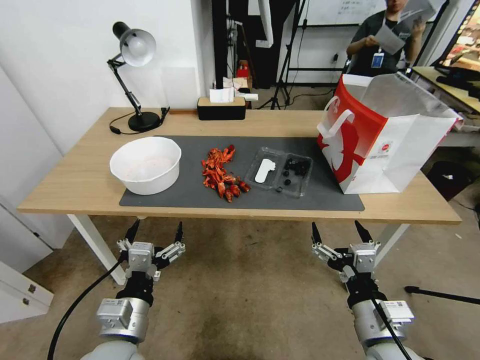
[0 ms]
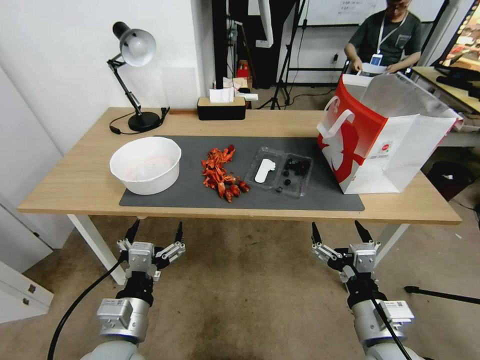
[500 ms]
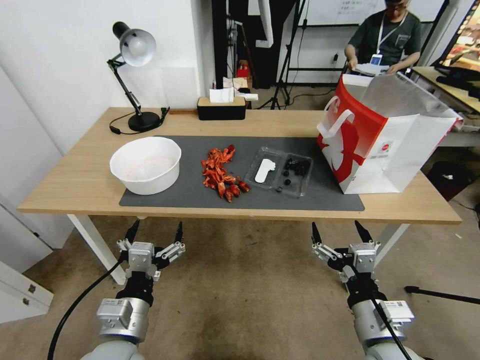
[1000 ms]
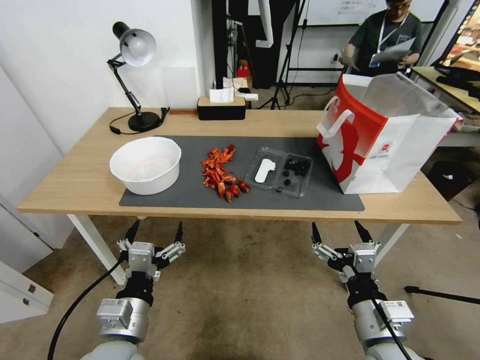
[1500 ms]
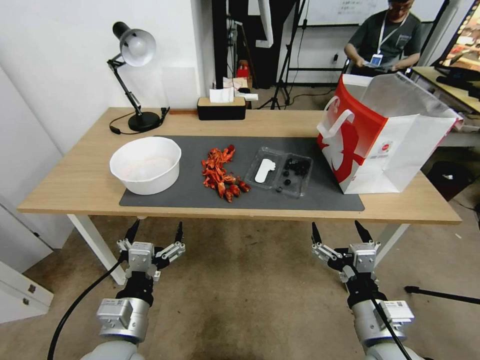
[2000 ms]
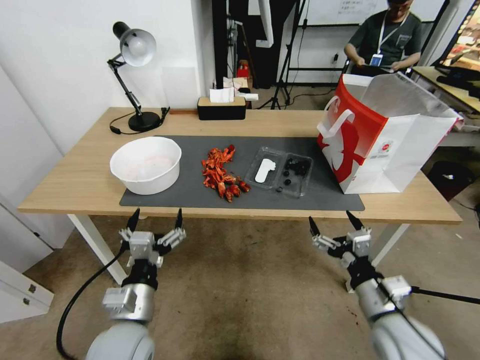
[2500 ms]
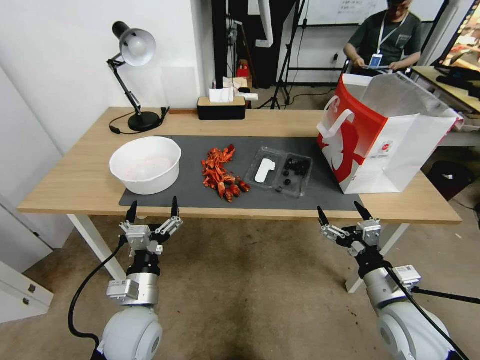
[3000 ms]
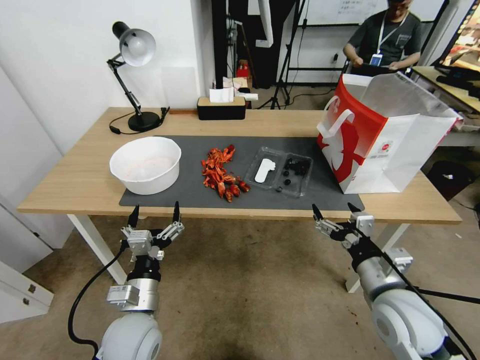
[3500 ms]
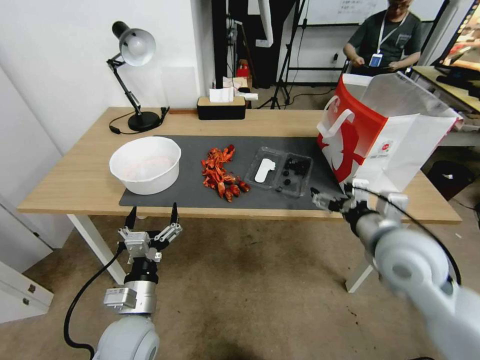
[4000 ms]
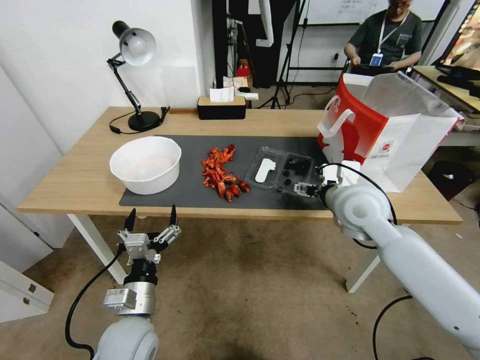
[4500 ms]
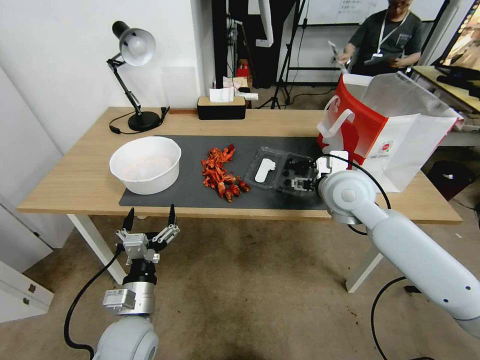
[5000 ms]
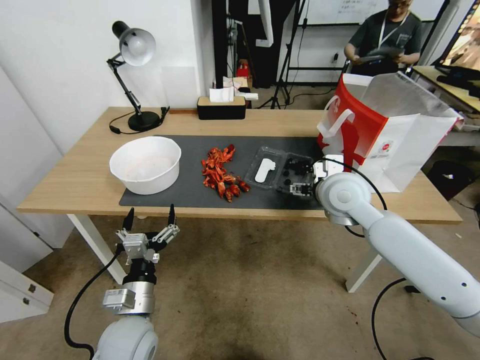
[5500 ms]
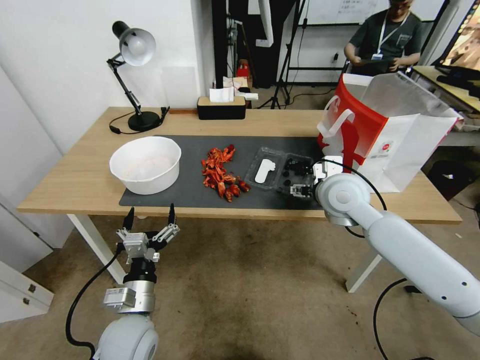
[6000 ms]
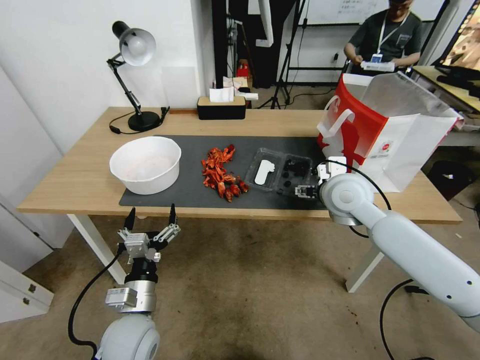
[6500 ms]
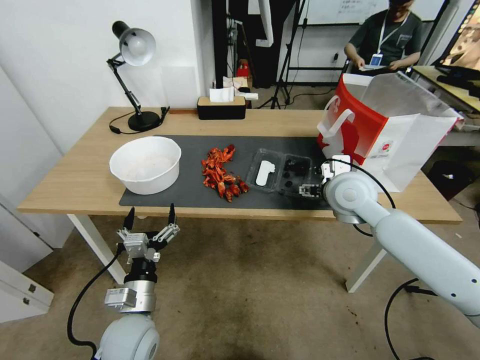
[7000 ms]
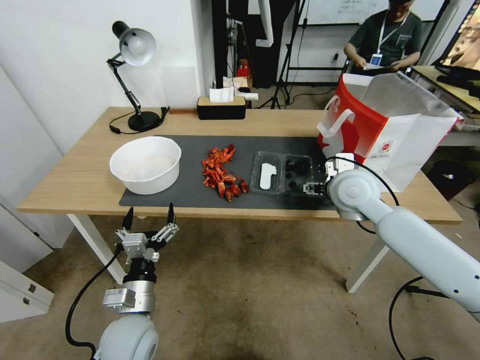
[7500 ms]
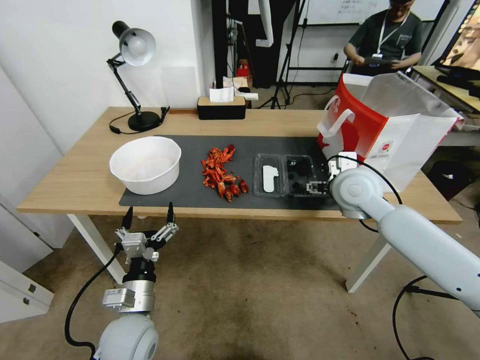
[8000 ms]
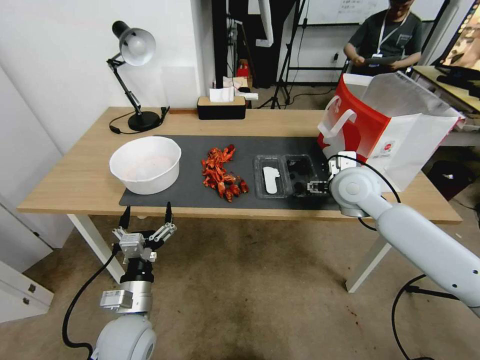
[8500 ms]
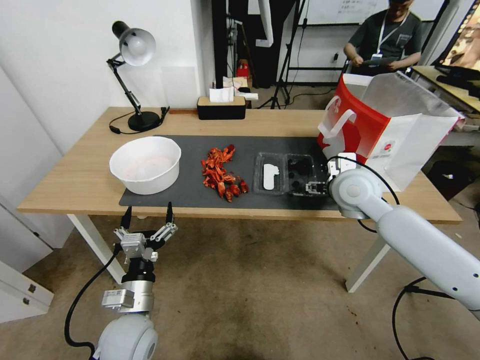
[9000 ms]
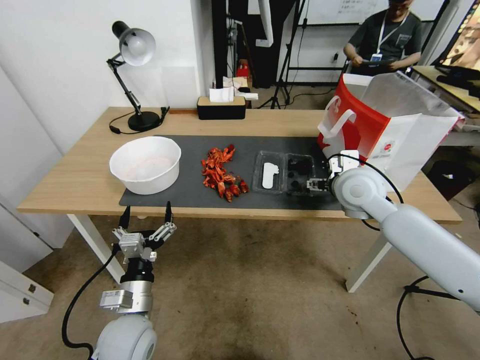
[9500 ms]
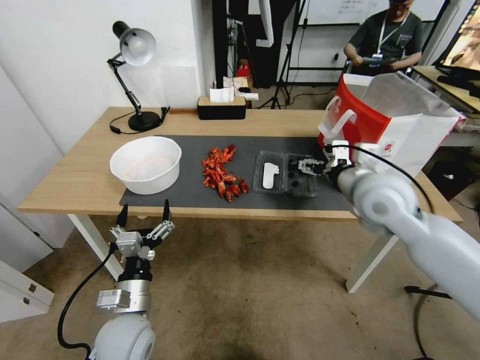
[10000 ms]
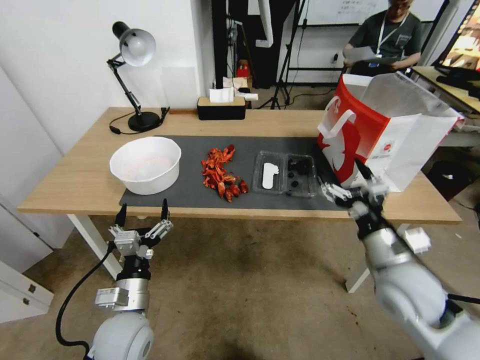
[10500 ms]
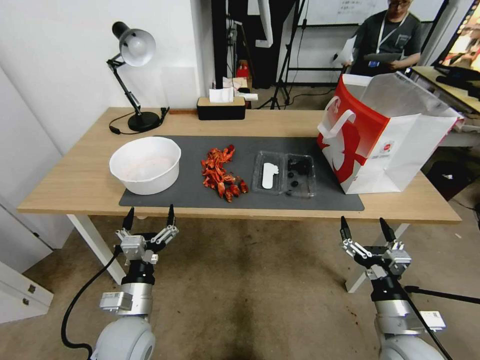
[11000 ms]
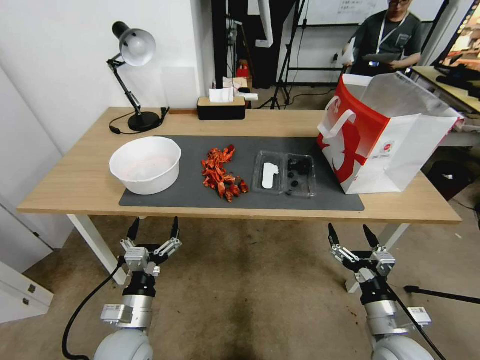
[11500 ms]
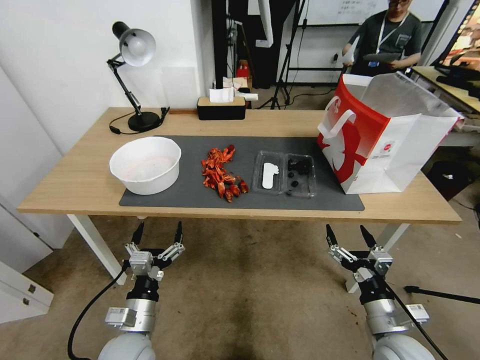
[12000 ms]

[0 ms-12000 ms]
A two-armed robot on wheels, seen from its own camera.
2000 ms to 4000 ms: The left gripper goes approximately 5 cm downward. Meanwhile the right gripper moves forward and upward, some 15 cm.
4000 ms to 6000 ms: The right gripper heads forward and to the left, covering about 15 cm.
6000 ms to 8000 ms: The grippers make only small movements.
8000 ms to 10000 ms: The right gripper ends up approximately 5 cm from where it was.
10000 ms to 12000 ms: The right gripper heads downward and backward, covering about 30 cm.

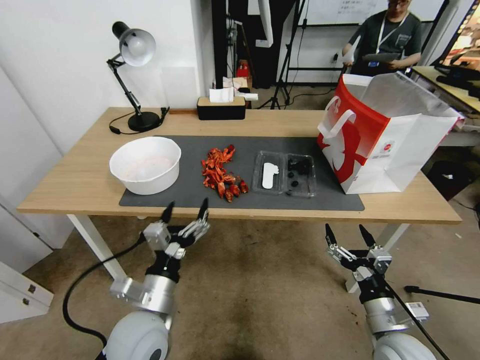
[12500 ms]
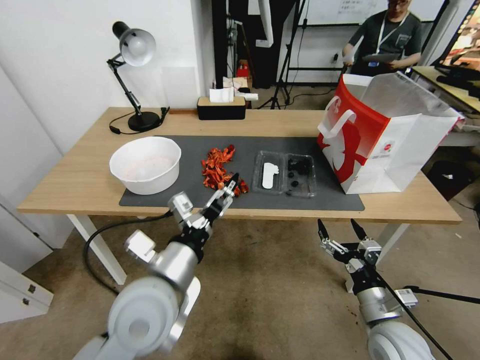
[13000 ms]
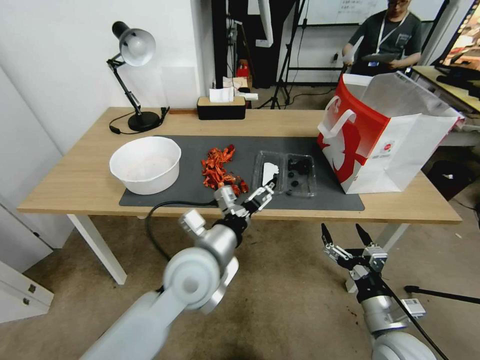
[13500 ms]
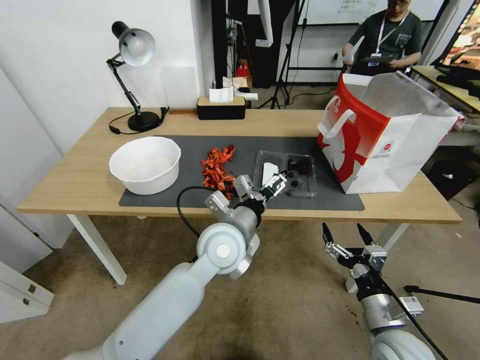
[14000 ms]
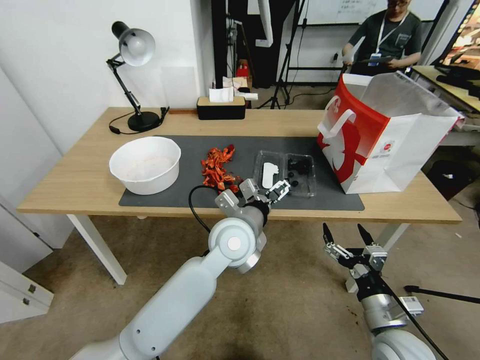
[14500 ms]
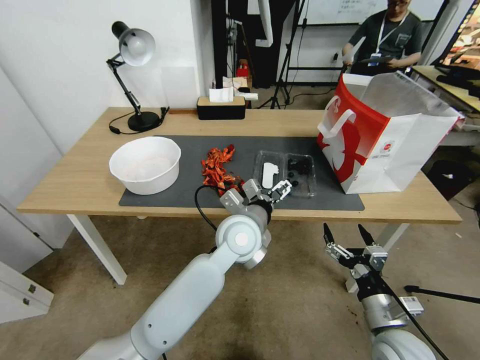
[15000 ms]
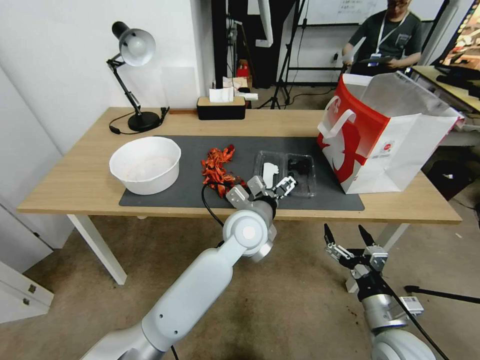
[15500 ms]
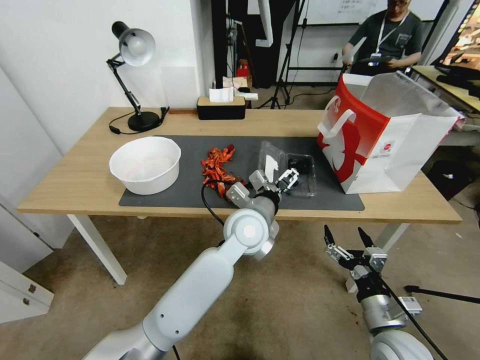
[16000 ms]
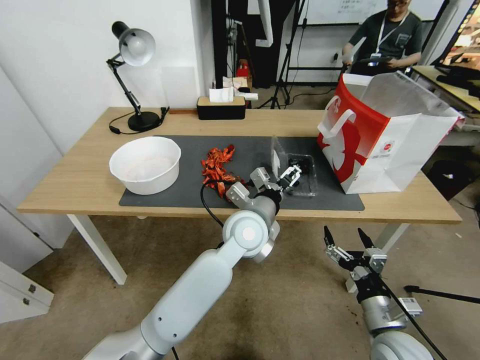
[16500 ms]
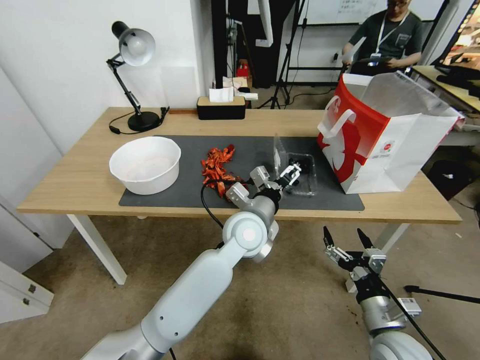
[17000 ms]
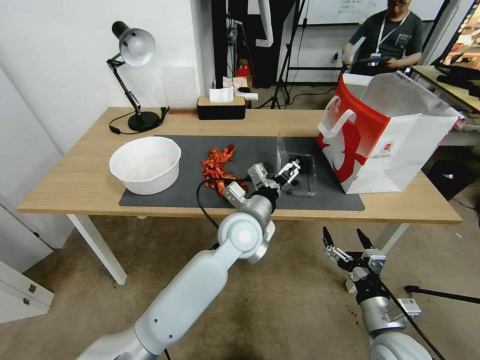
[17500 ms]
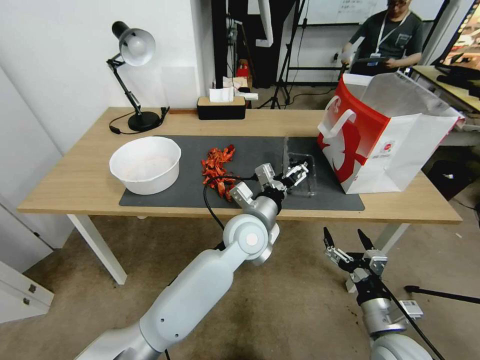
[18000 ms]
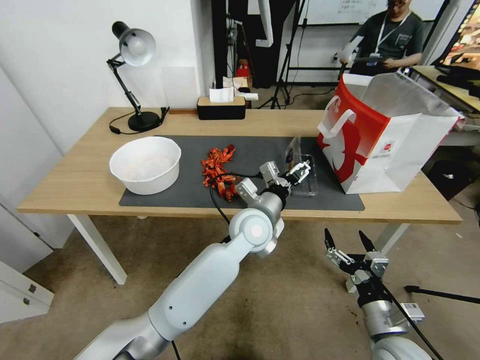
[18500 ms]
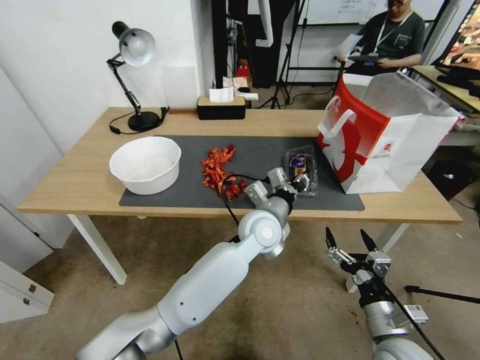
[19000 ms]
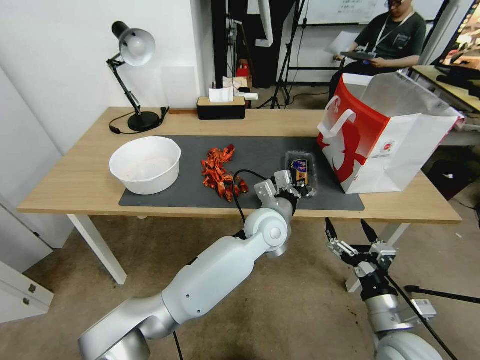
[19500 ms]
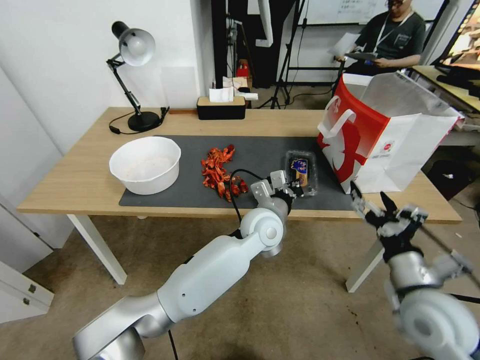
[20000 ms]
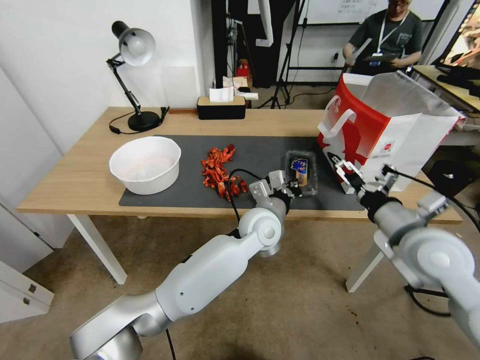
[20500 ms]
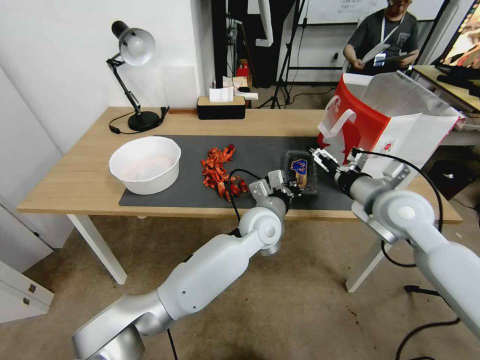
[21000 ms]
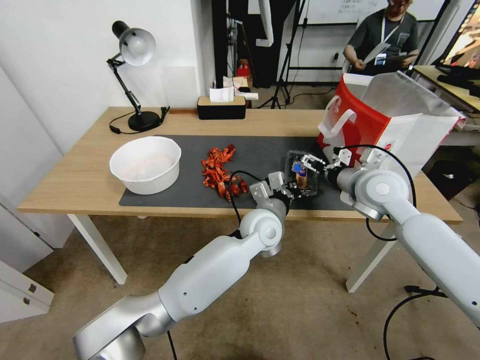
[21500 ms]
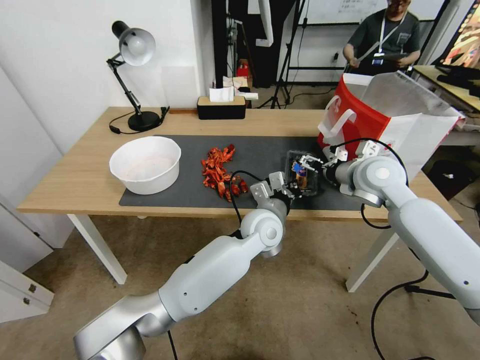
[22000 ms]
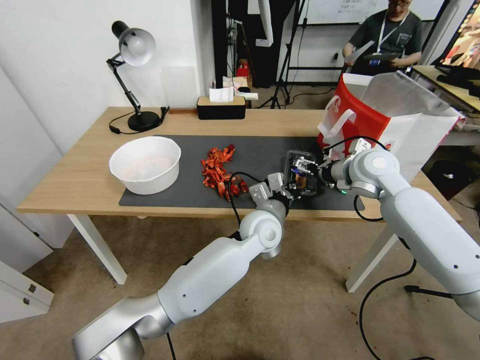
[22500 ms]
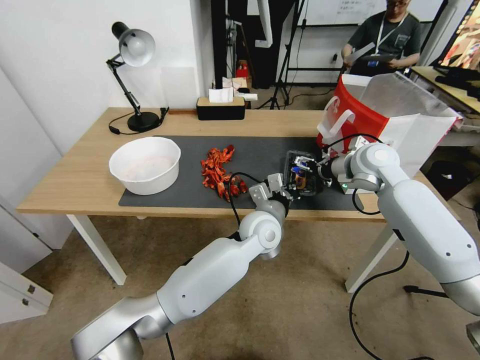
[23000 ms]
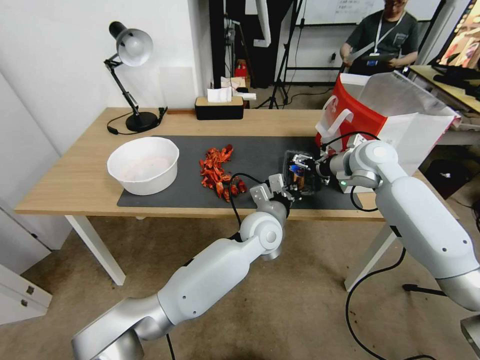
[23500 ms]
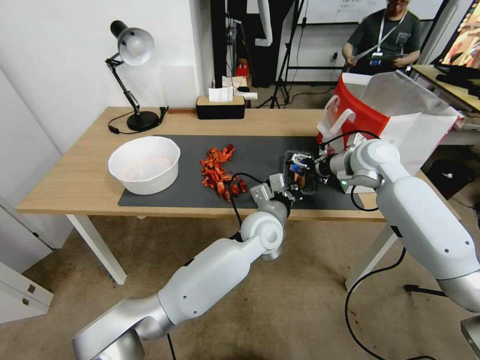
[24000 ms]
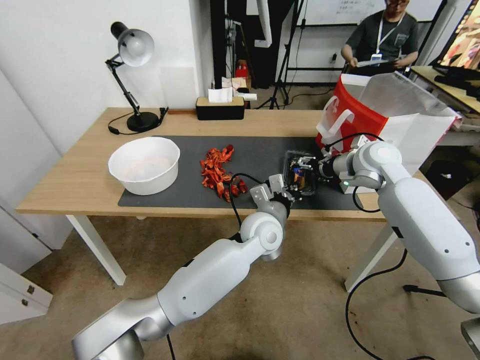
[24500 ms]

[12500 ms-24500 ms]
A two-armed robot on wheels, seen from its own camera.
12500 ms to 14500 ms: The left gripper shifts approximately 25 cm to the right, forward and upward.
14500 ms to 18500 ms: The grippers stay close to where they were, moving slightly.
18500 ms to 20500 ms: The right gripper heads upward and forward, covering approximately 25 cm. The left gripper closes its fingers.
20500 ms to 22500 ms: The right gripper travels forward by approximately 20 cm.
22500 ms to 24500 ms: The grippers make only small movements.

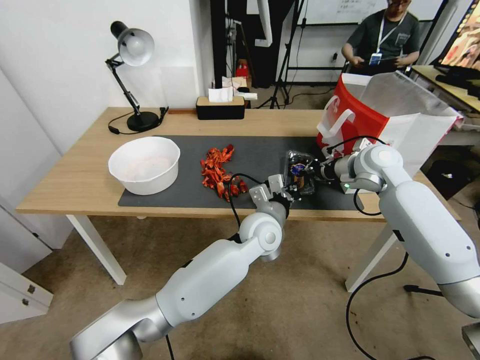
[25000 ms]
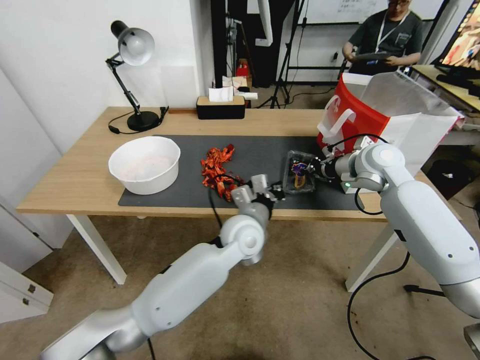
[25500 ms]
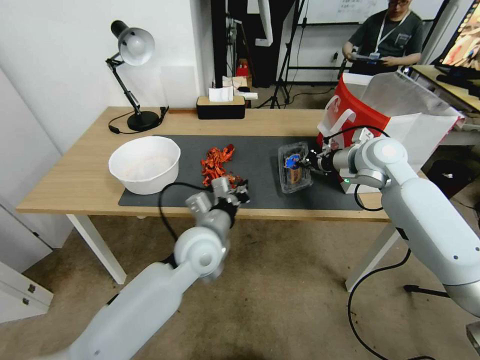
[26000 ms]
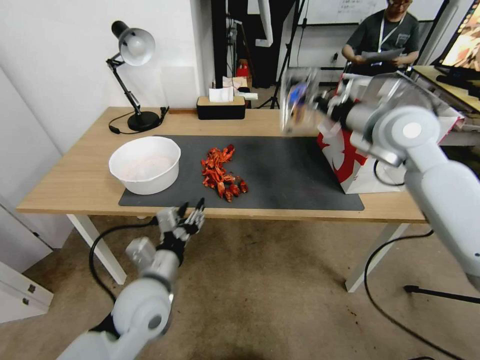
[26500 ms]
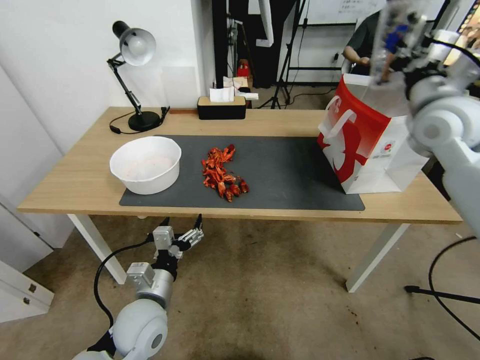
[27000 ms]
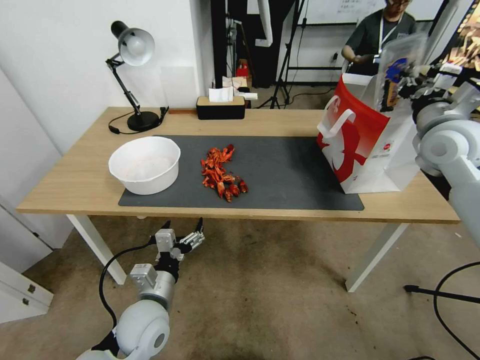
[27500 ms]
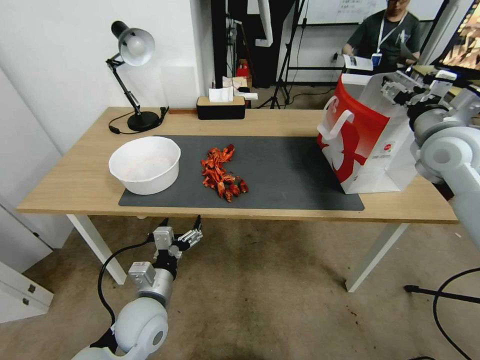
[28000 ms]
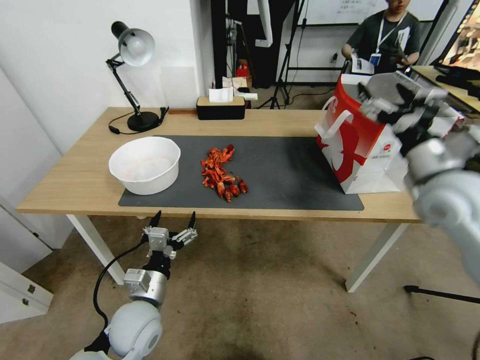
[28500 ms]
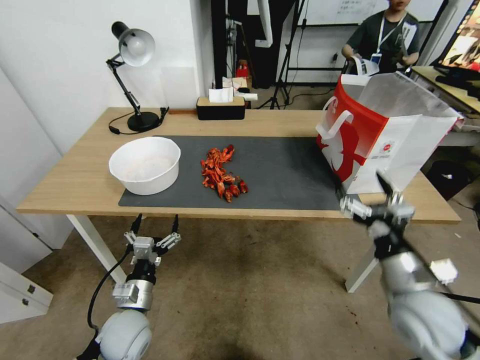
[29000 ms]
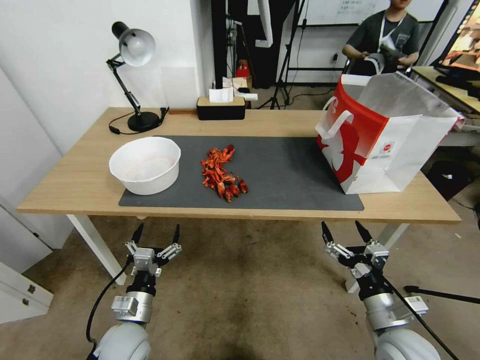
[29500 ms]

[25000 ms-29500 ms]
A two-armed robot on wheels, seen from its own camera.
25000 ms to 27000 ms: The left gripper heads to the left and backward, covering approximately 30 cm, and opens its fingers. Meanwhile the right gripper goes about 15 cm upward.
27000 ms to 29500 ms: The right gripper goes roughly 40 cm downward and backward, and opens its fingers. The left gripper shifts approximately 5 cm downward.
